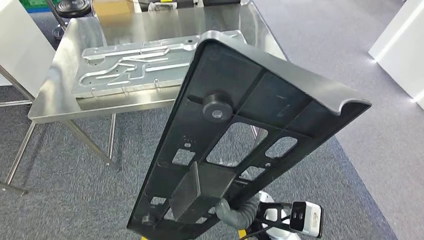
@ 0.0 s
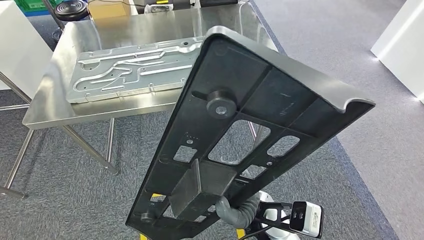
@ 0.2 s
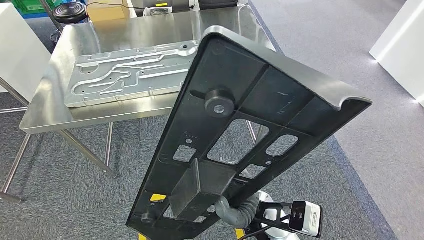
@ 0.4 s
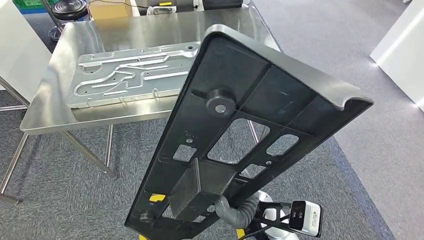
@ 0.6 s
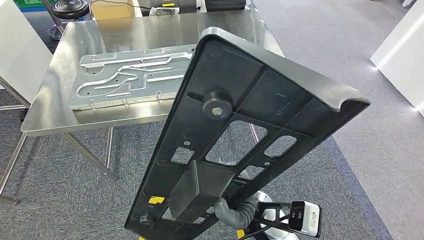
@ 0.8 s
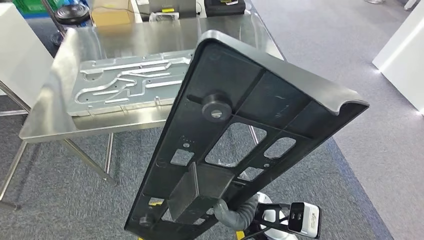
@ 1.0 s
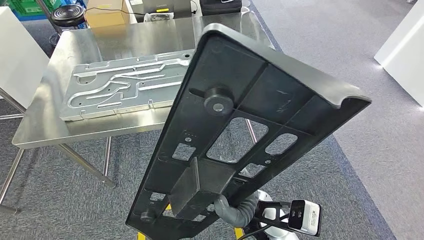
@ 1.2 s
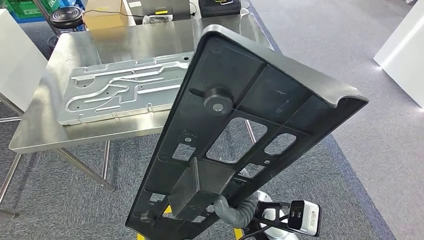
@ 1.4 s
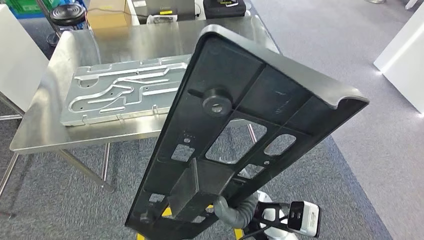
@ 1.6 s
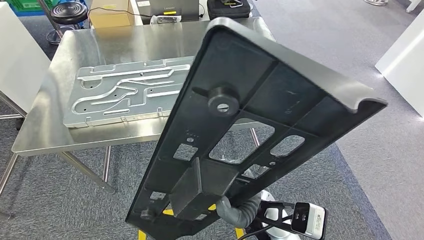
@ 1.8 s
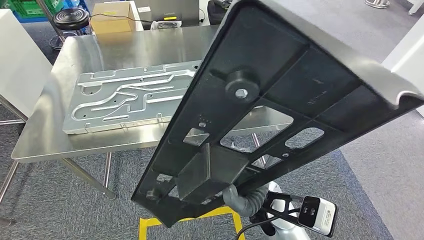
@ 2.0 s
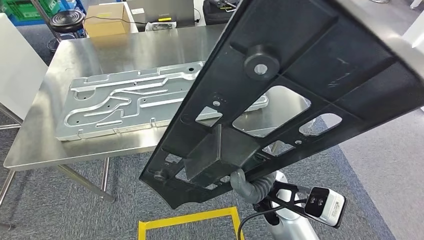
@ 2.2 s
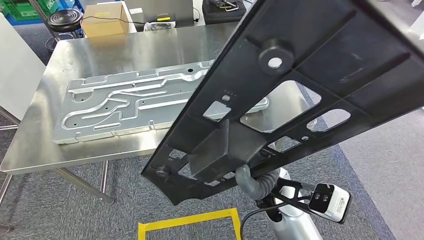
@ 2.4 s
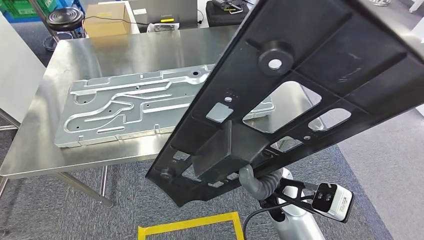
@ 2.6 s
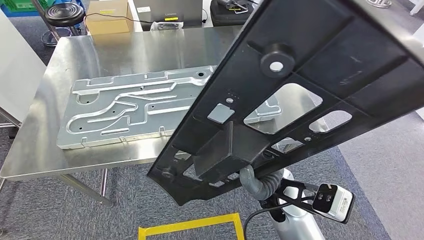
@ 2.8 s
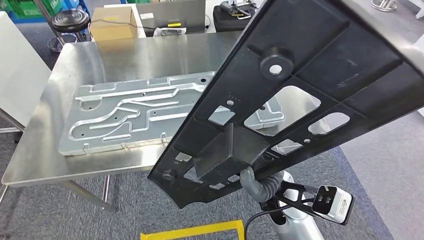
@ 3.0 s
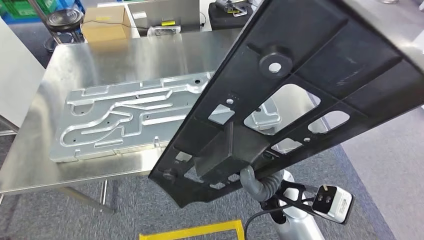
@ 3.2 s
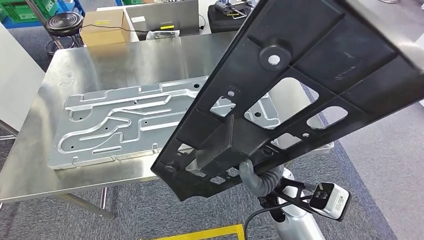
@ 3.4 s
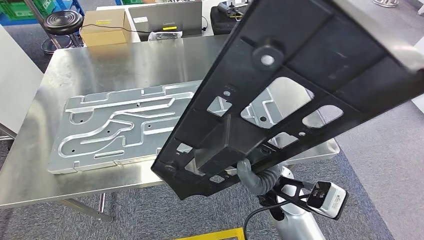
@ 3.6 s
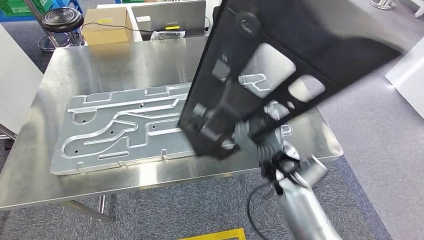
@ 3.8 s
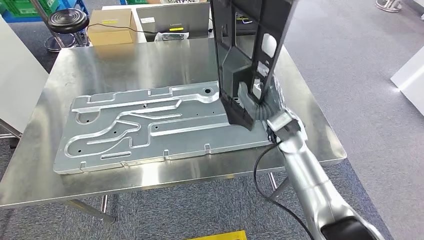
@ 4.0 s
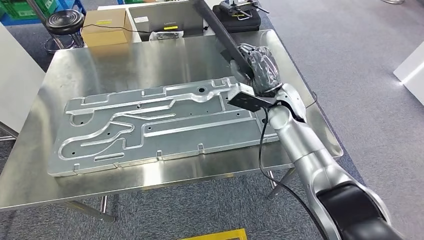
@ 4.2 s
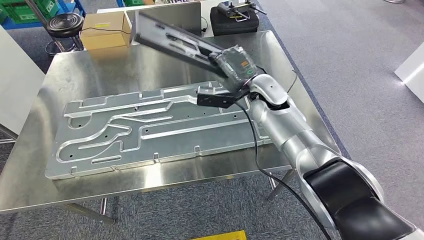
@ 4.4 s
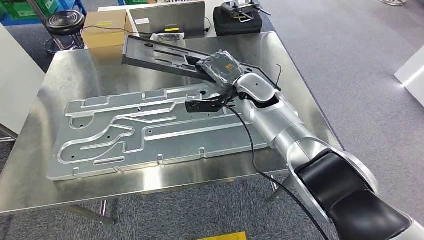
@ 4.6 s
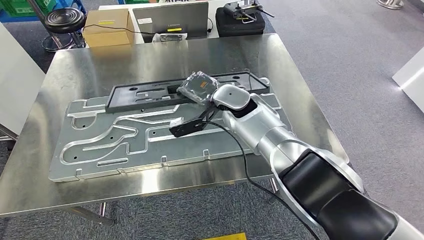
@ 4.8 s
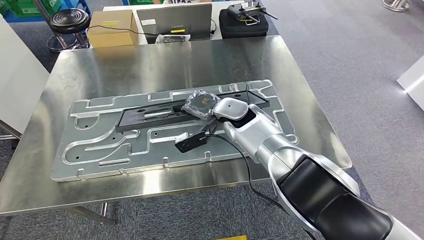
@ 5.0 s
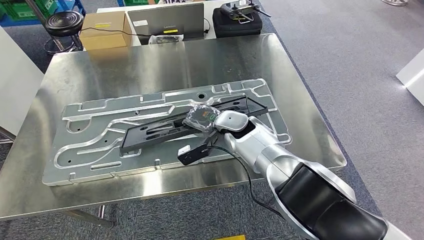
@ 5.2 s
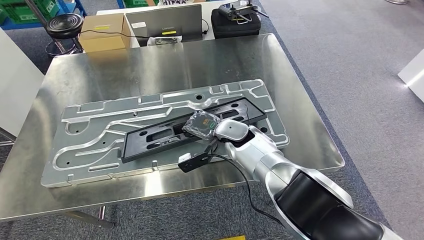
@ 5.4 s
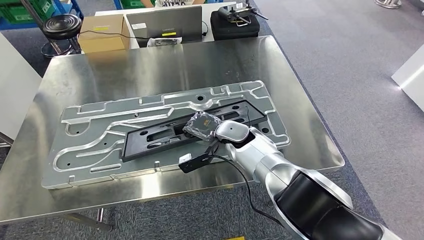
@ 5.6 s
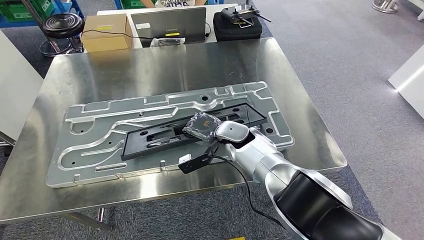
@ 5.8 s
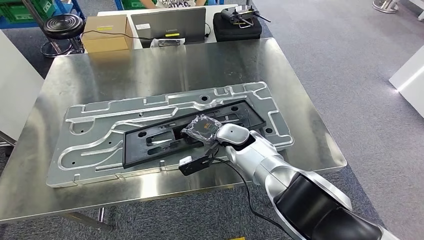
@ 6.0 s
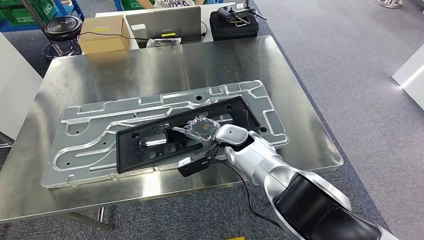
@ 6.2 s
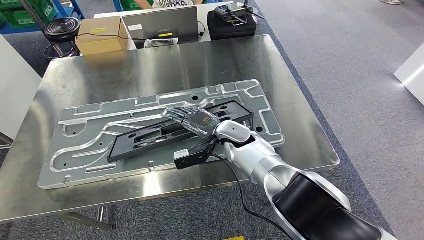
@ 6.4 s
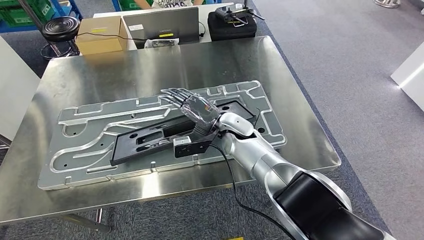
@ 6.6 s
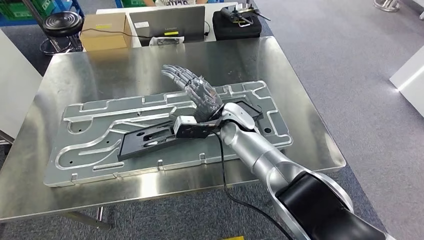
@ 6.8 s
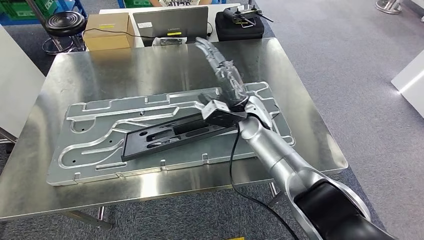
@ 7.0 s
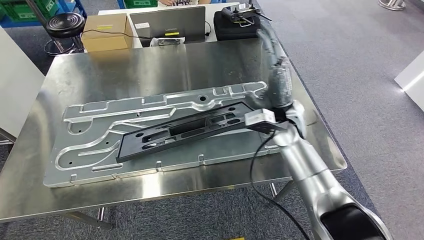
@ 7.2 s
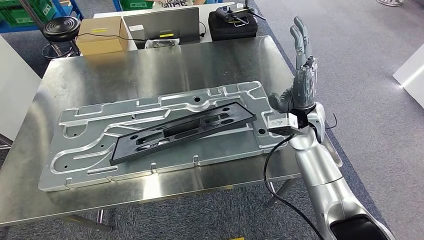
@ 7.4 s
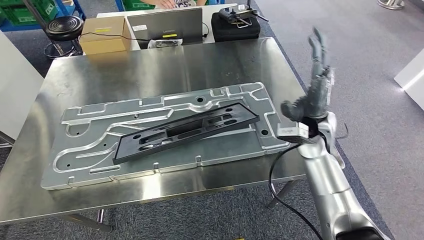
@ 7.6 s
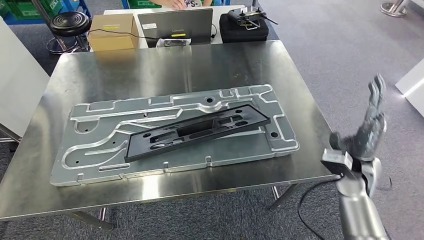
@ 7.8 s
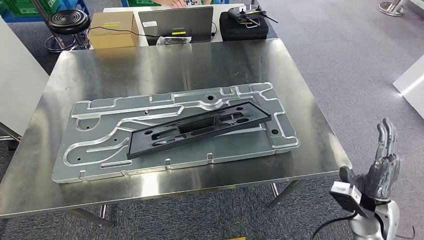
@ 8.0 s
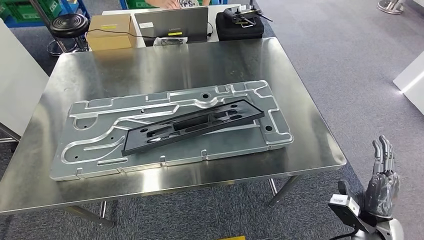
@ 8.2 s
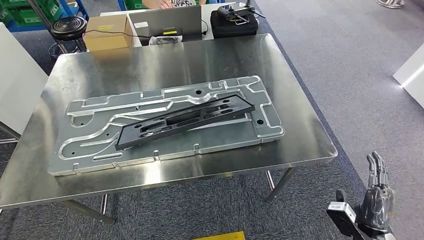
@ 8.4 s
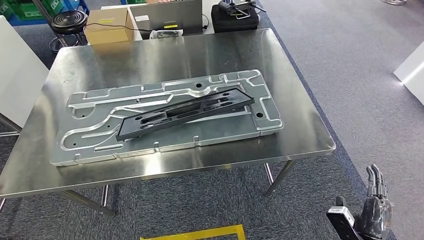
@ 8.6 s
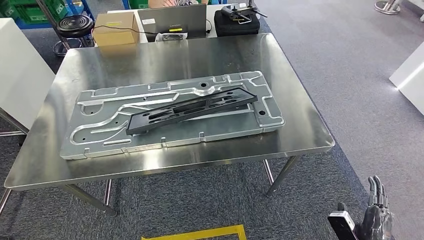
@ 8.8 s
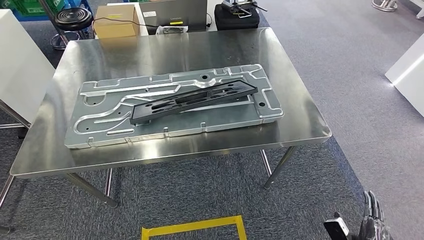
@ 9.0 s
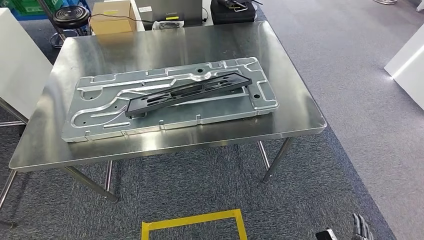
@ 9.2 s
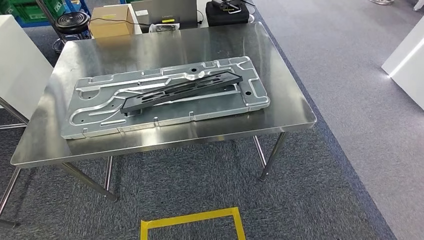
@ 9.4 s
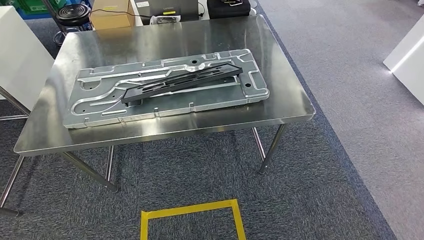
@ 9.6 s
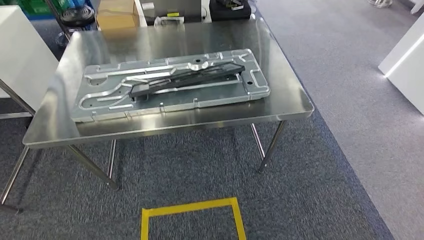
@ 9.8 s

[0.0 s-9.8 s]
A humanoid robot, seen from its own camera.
Step, 0.0 to 4.6 s: Move the large material to the front of the workbench.
Step, 4.8 to 8.0 s: Insert the large material into the corresponding hole on the workbench.

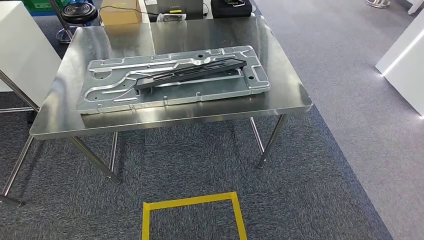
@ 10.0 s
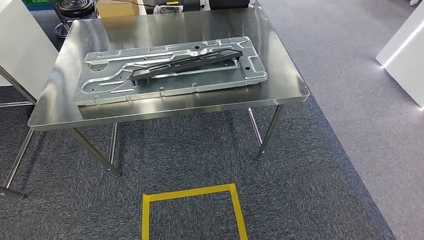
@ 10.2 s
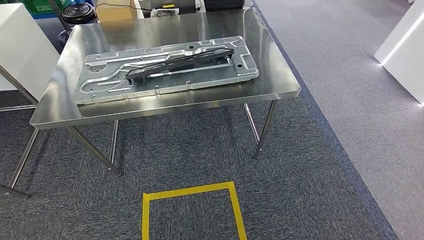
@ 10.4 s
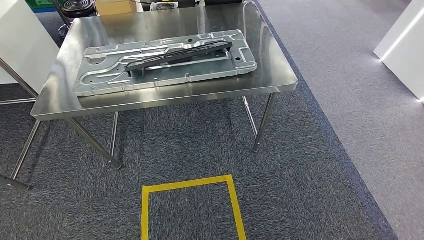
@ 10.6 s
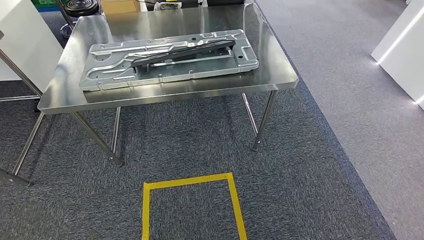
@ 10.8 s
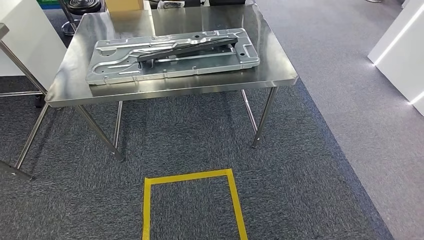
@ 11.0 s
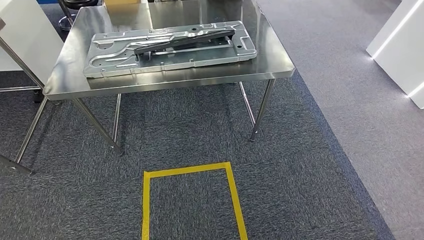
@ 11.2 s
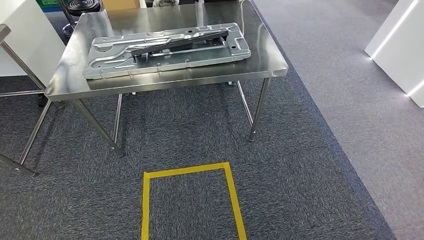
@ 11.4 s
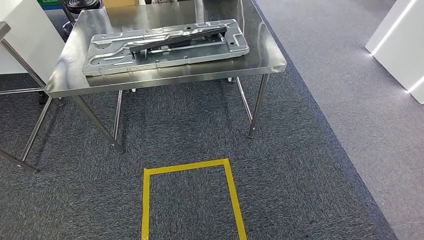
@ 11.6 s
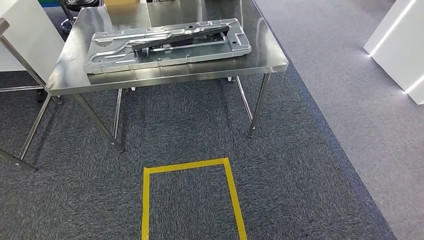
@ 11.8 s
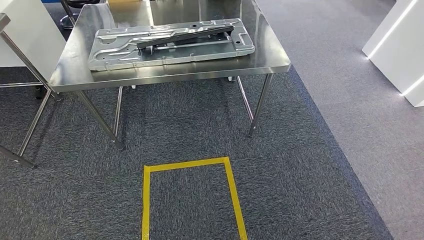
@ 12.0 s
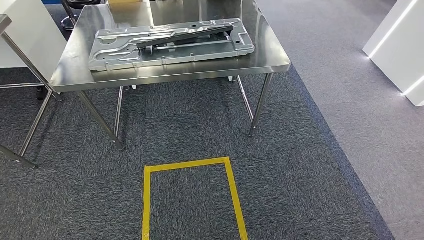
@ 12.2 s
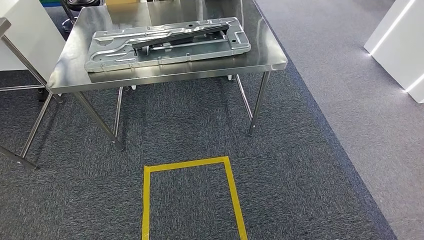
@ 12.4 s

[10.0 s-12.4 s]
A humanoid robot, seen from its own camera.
Step, 10.0 to 12.4 s: Move to the initial position of the shelf.
11.2 to 12.4 s: Neither hand changes place.
